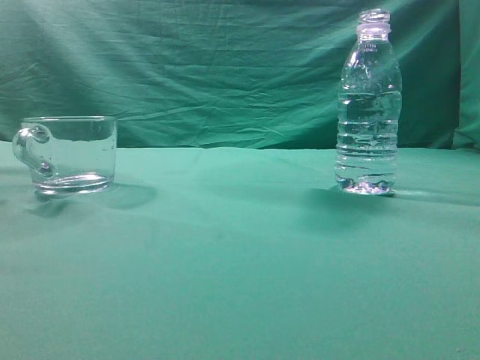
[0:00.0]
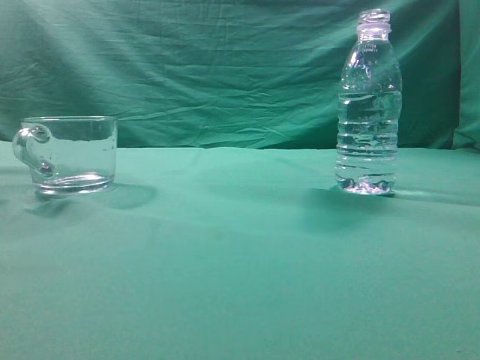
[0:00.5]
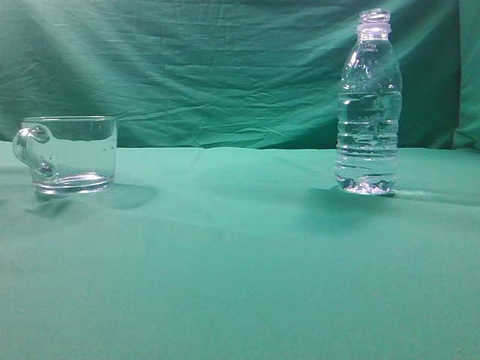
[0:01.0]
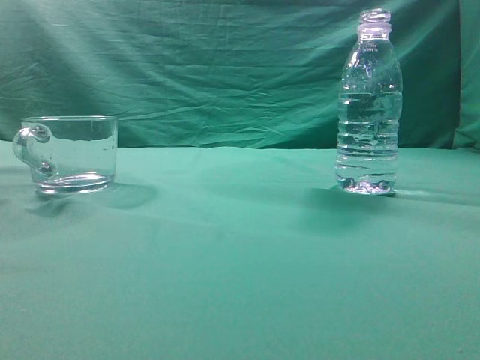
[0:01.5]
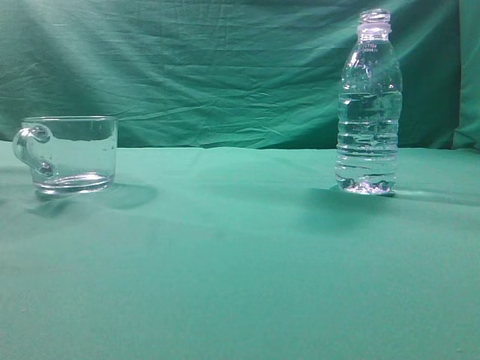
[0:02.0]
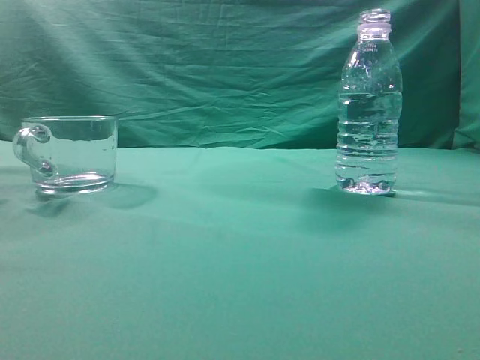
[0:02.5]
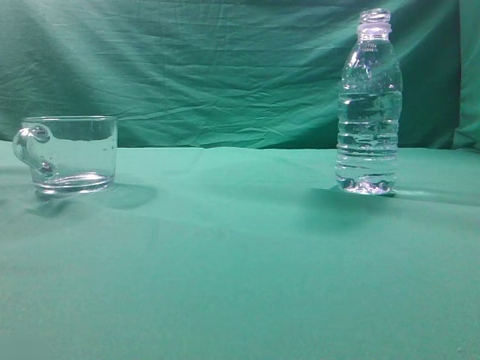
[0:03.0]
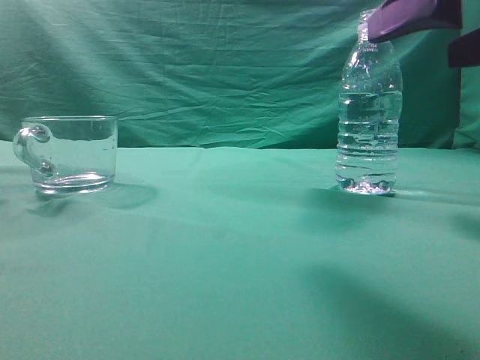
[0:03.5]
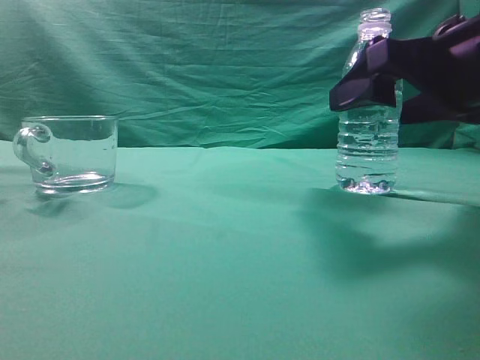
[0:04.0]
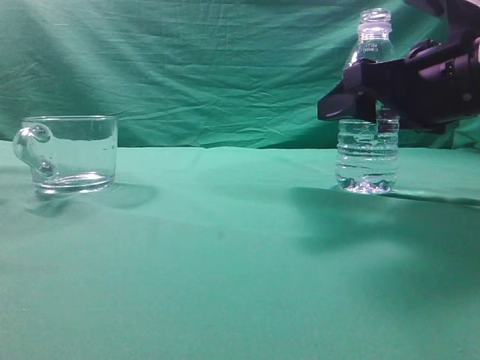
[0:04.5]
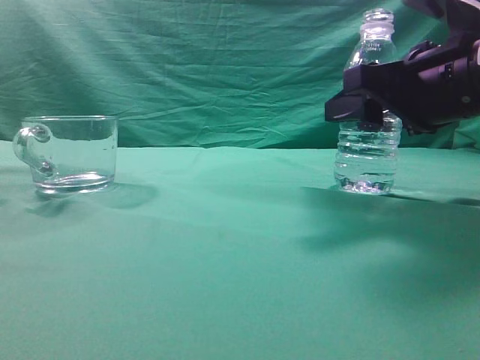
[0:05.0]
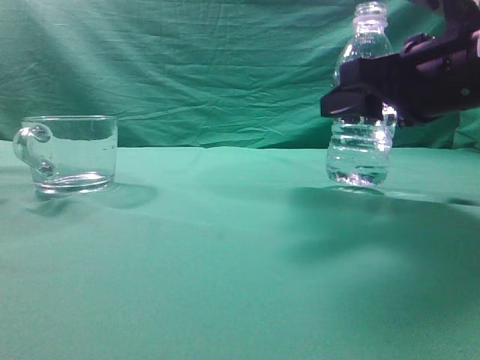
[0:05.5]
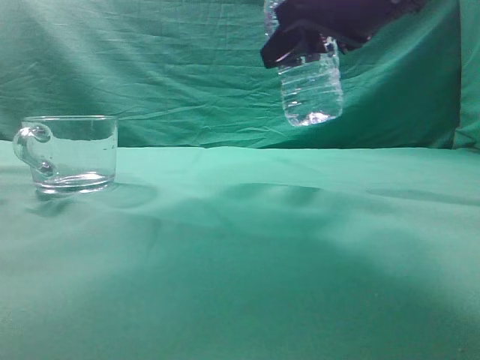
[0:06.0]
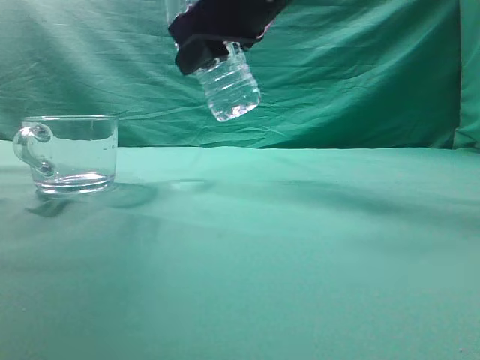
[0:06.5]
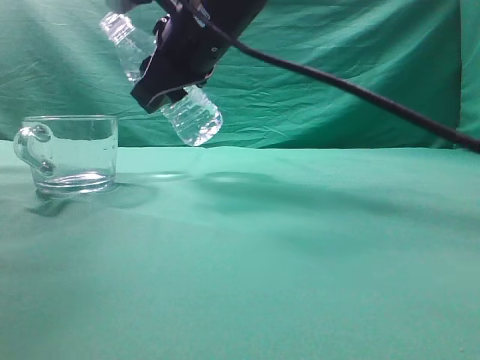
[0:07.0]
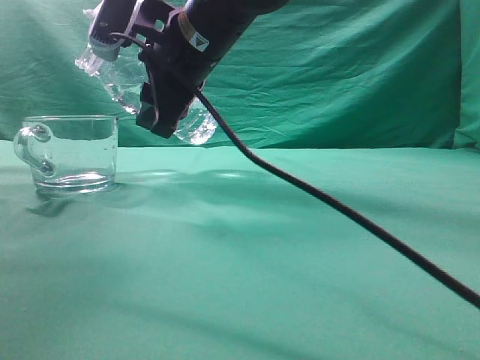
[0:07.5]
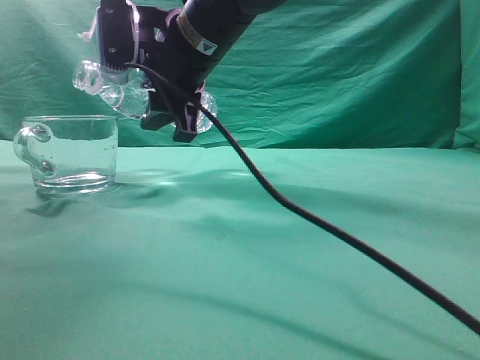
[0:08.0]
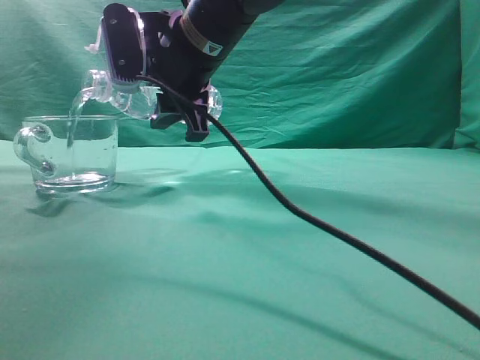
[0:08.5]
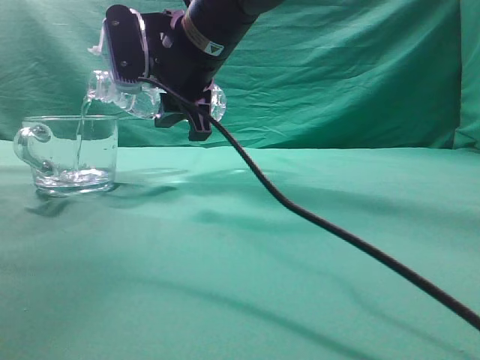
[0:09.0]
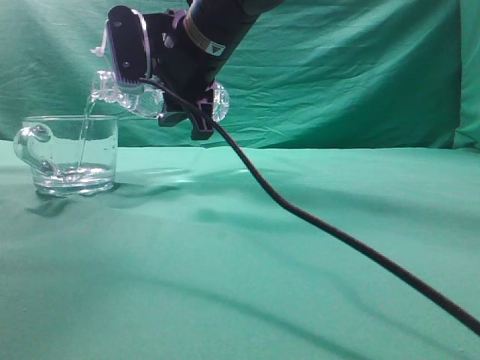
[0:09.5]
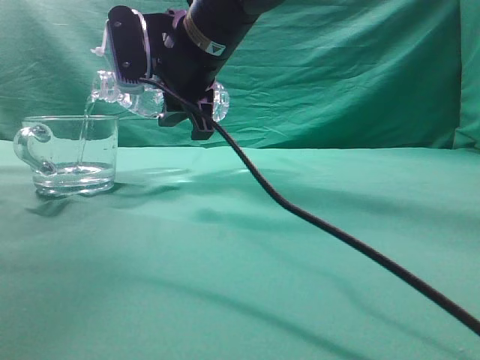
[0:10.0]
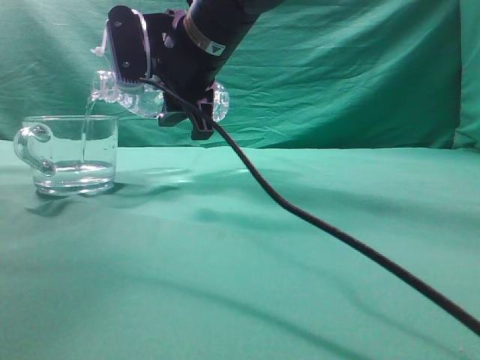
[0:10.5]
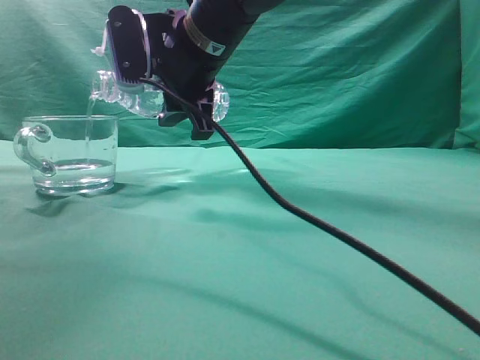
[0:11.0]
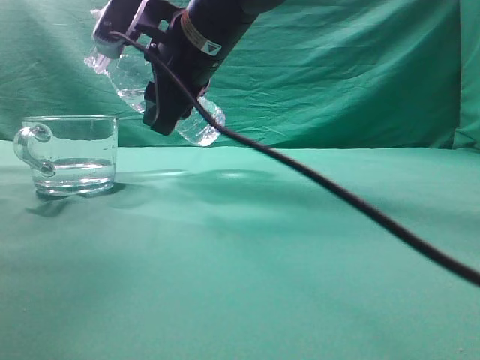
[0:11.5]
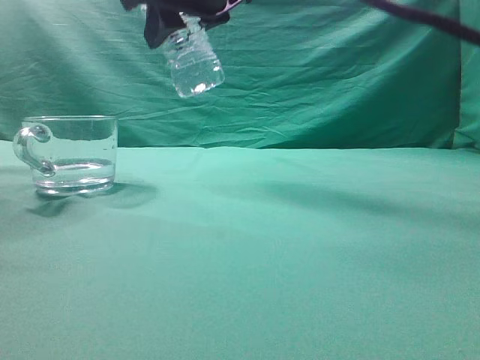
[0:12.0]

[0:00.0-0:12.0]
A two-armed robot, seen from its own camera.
Task of the whole recording: pick up the water bottle and pour the water in it into the glass.
Step, 0:00.0 to 0:05.5: Grasp the mineral water bottle.
Step, 0:06.0 to 0:11.5: Pour water into the teacup.
0:02.0 to 0:04.0: The right gripper travels forward, downward and to the left by some 25 cm, and opens its fingers.
0:04.0 to 0:06.0: The right gripper shifts some 10 cm to the left and upward, and closes.
0:06.0 to 0:08.0: The right gripper shifts approximately 15 cm to the left and forward.
0:08.0 to 0:10.0: The grippers stay close to where they were, moving slightly.
0:10.0 to 0:12.0: The right gripper travels upward by some 10 cm.

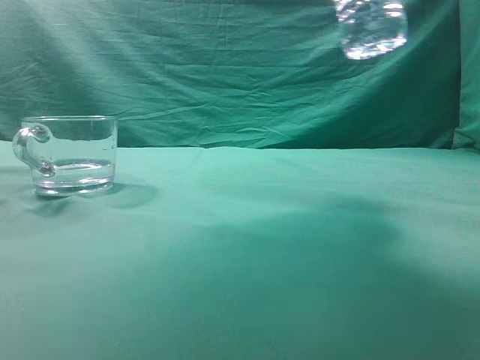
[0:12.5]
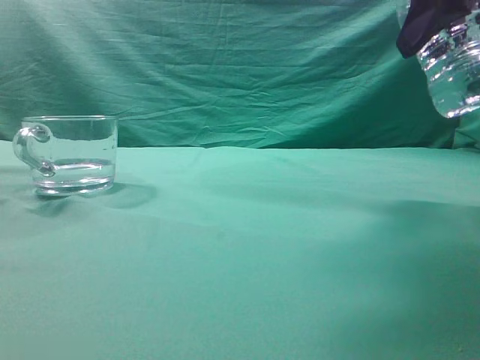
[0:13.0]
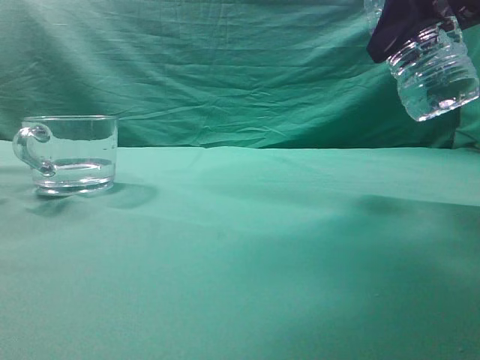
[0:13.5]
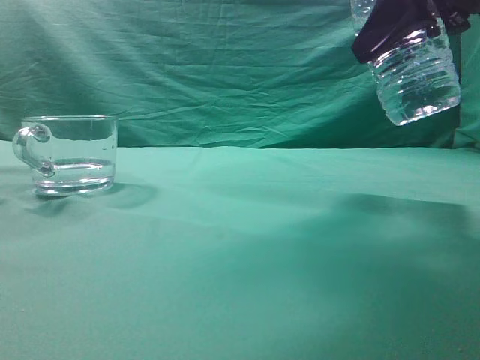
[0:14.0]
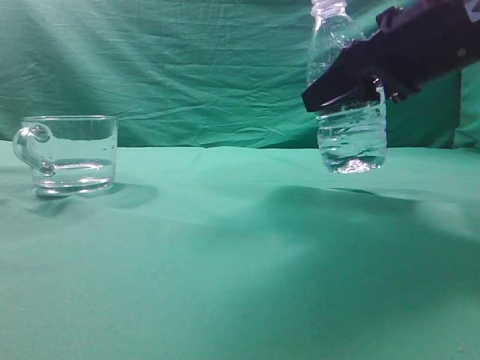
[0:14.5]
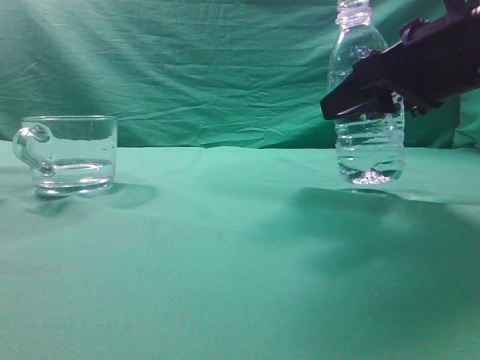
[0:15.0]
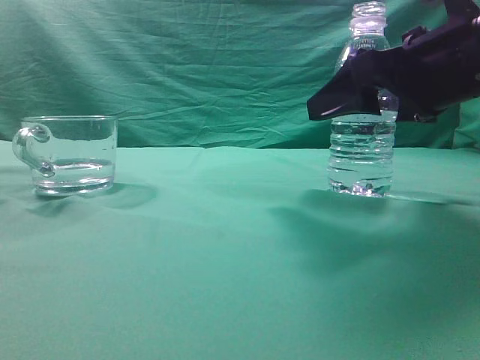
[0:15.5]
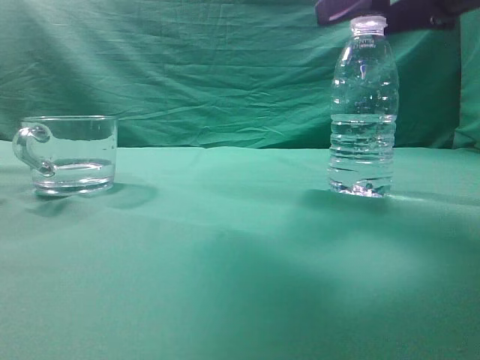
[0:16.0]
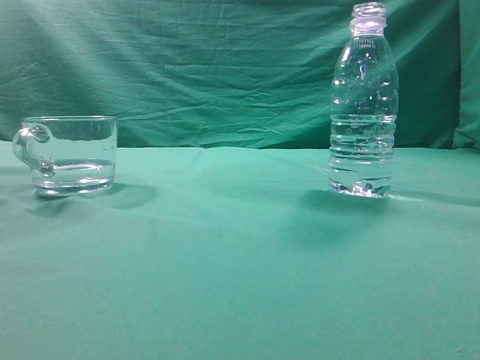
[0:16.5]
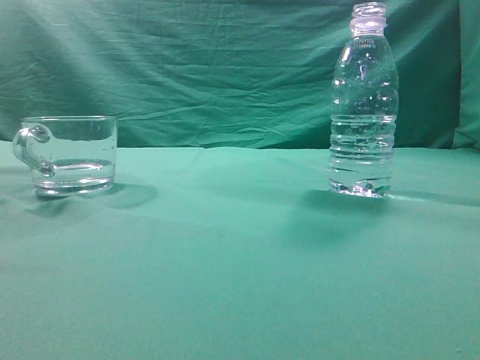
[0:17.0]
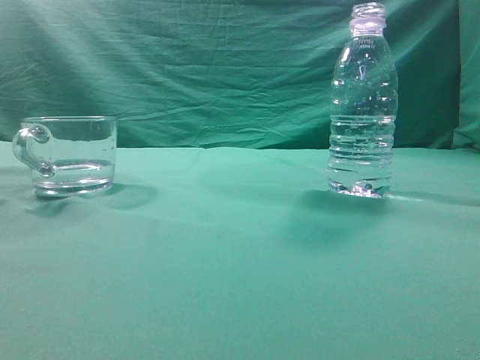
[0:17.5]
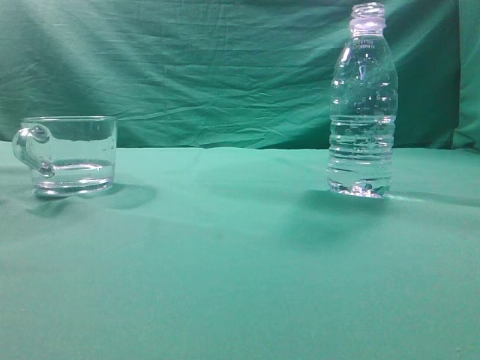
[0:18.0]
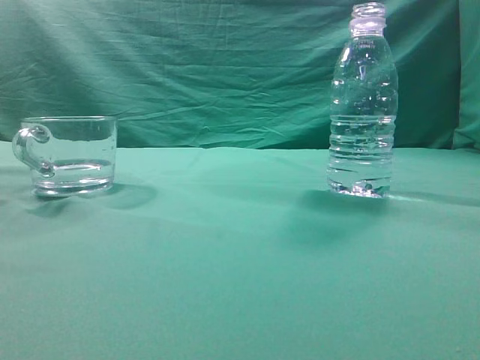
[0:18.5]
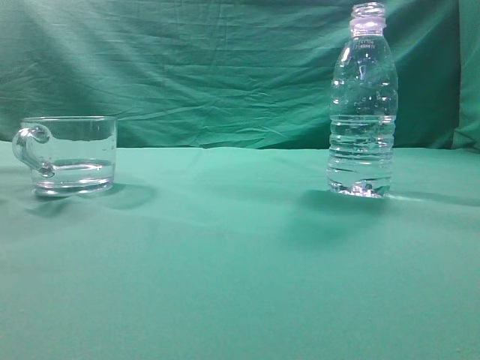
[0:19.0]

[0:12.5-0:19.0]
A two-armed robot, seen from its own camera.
Task of the whole recording: pick up the water bottle and pour the water in it into the glass.
0:12.5 to 0:14.5: The right gripper goes some 10 cm downward.
0:14.5 to 0:17.0: The right gripper is displaced upward and backward by about 30 cm, and closes.
